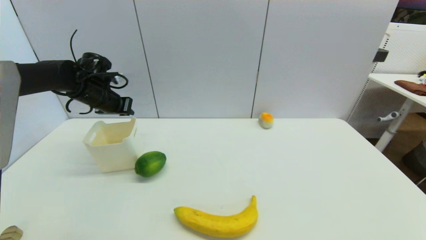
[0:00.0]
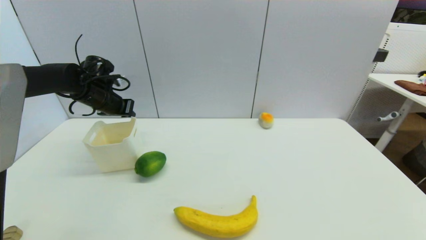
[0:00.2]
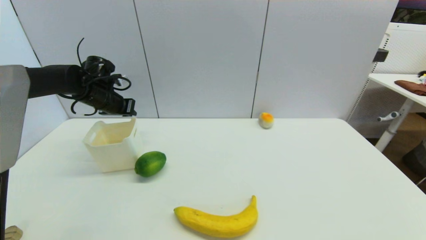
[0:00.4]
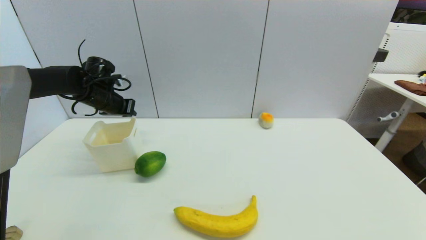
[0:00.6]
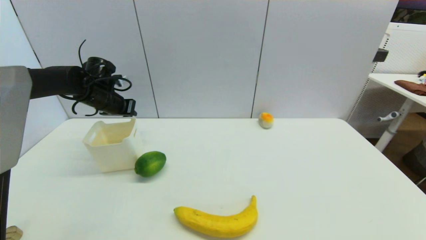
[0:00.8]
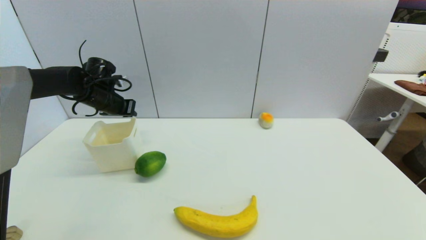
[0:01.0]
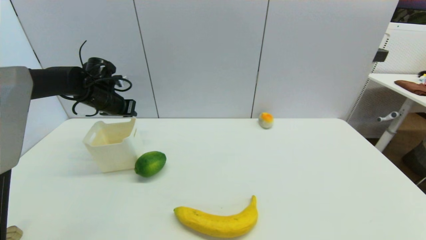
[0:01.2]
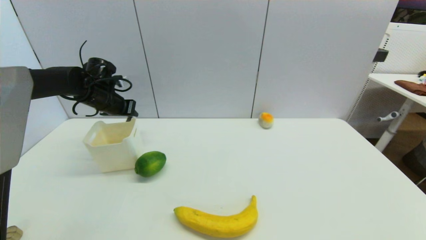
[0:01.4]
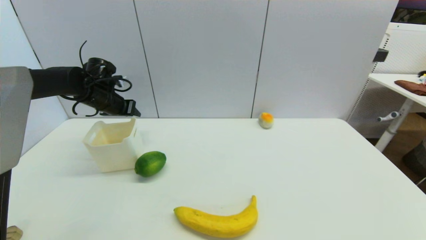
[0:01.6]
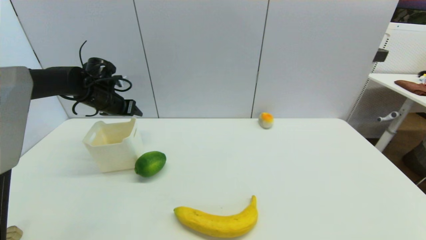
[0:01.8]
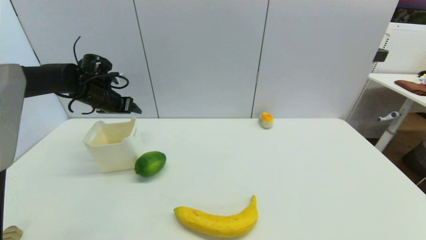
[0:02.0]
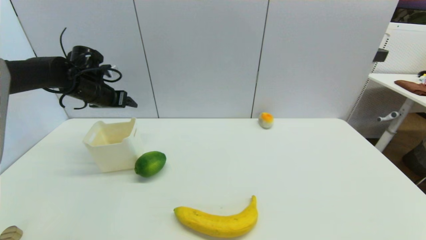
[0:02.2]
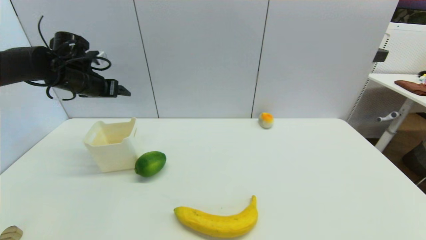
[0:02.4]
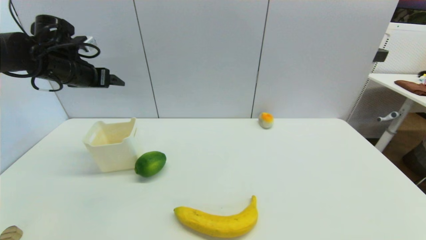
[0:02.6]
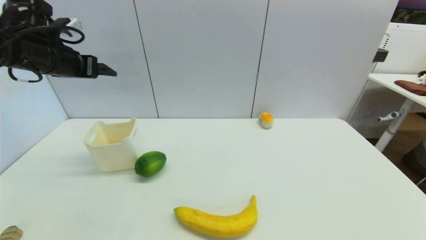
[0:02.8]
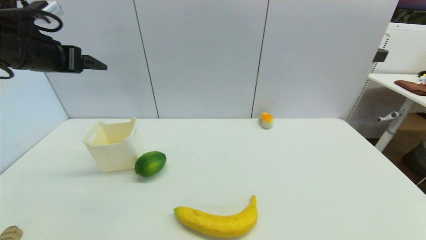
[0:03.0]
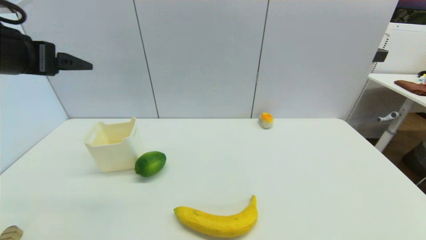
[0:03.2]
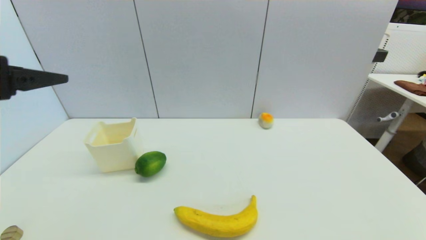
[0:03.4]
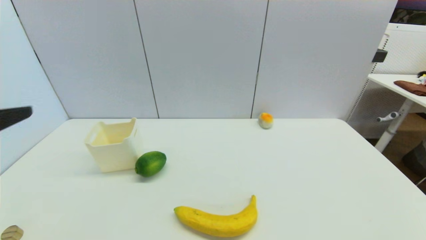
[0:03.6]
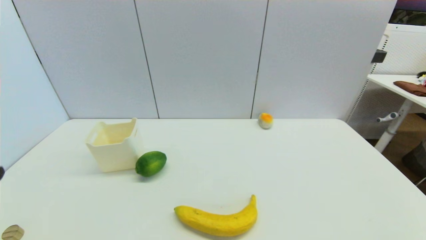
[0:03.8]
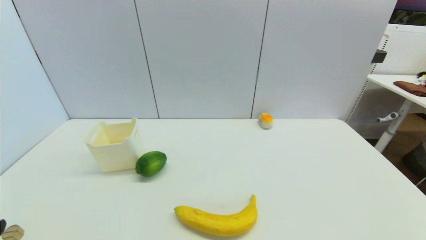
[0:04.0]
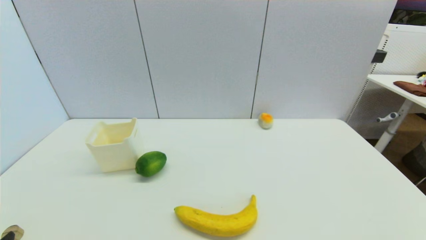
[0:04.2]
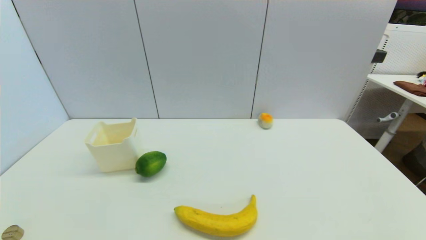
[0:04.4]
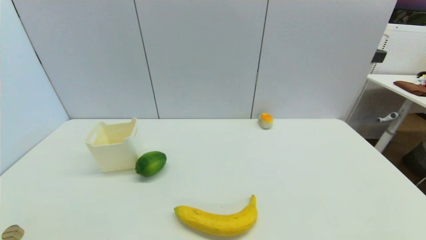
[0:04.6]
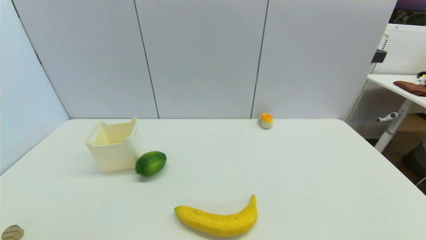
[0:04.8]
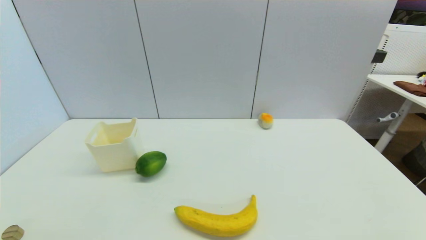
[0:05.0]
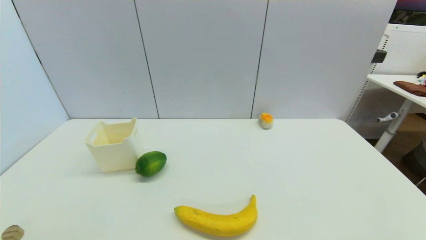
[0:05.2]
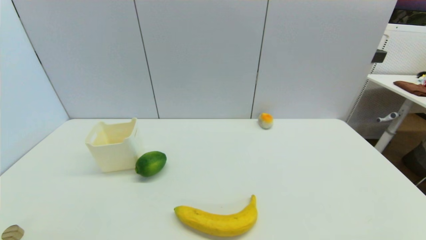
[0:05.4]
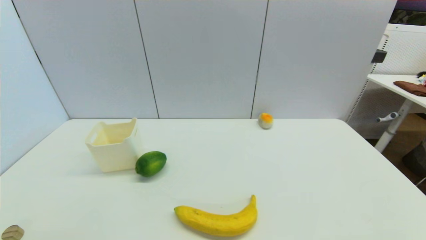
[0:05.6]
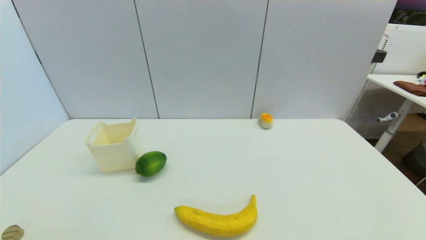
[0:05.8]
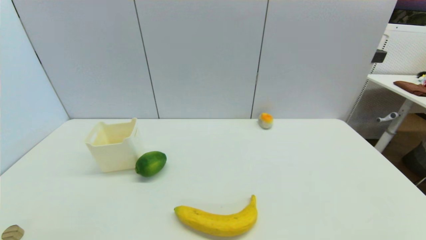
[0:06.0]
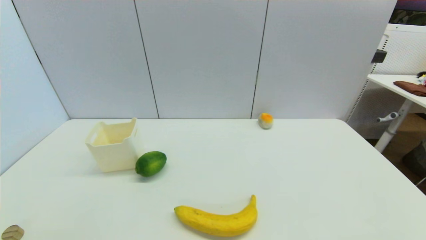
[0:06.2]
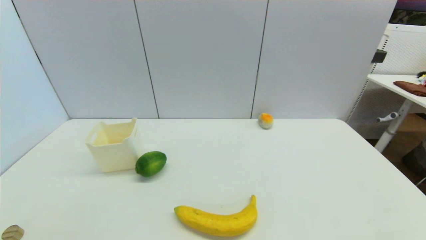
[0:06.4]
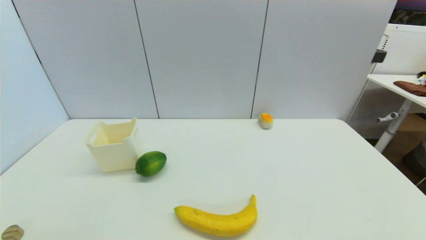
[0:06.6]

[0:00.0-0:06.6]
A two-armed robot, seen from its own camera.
0:00.0 to 0:01.6: The left gripper opens its fingers.
0:01.6 to 0:03.2: The left gripper goes approximately 25 cm backward and upward, and opens its fingers.
0:03.2 to 0:05.0: The left gripper travels downward and backward by approximately 35 cm.
